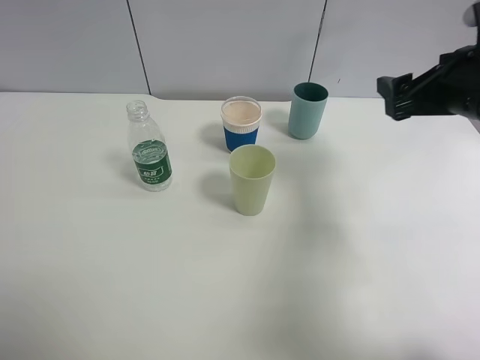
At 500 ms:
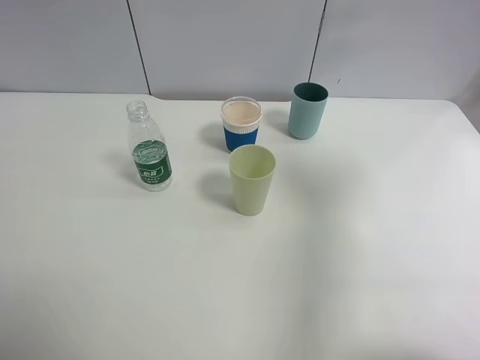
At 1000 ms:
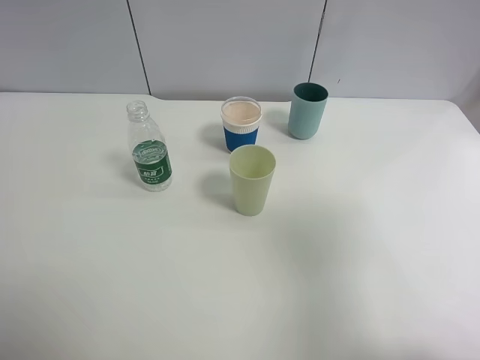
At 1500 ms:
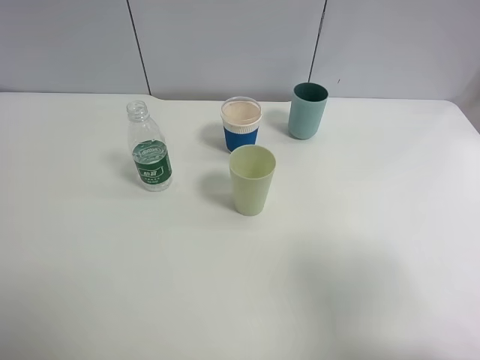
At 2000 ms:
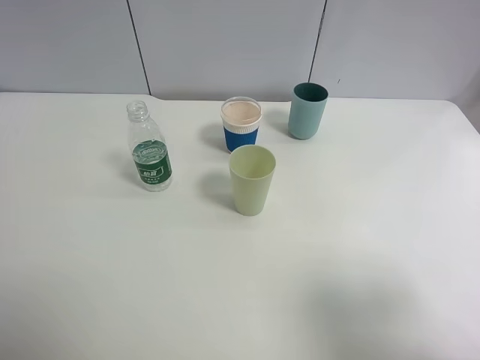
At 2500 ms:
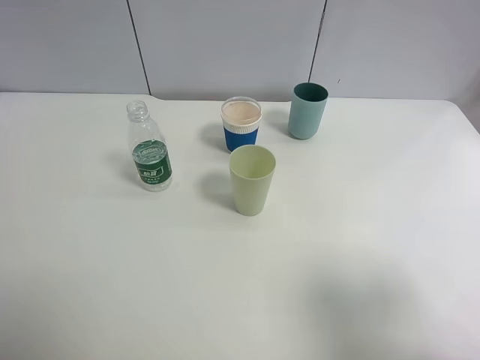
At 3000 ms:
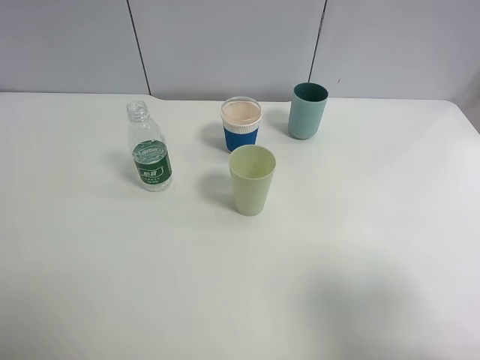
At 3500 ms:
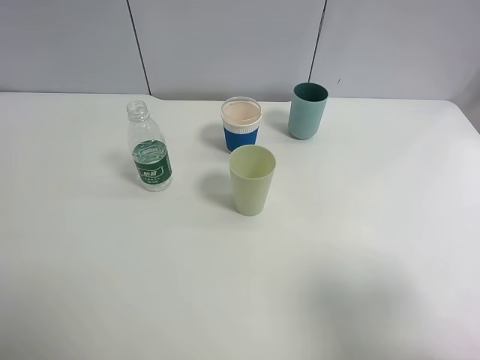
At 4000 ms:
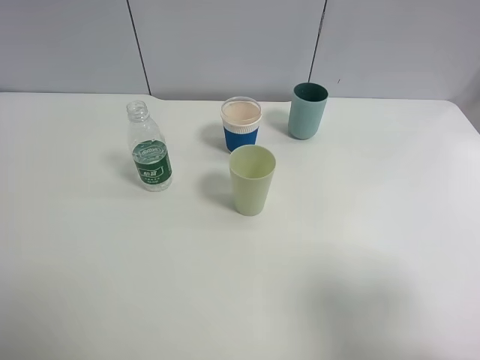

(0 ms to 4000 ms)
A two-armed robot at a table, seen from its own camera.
Task of the whole recording: use a clamp to hold the bottle of the drink, pour the beverage into a random cup, then clamp the cup containing the drink and pour the drink into another random cup.
0 ms - 2000 ms: The right gripper is displaced backward by some 25 cm.
2000 ms - 4000 ms: Neither gripper changes place.
